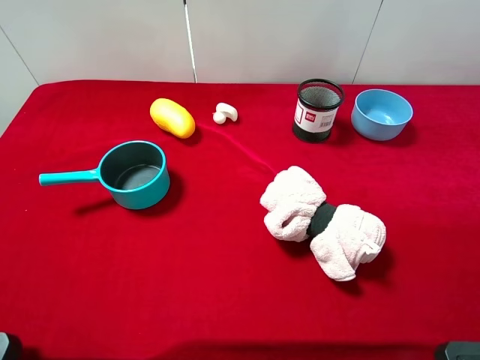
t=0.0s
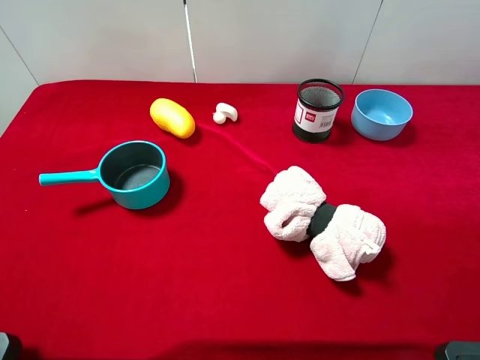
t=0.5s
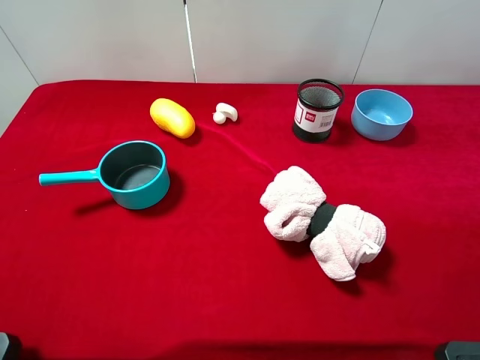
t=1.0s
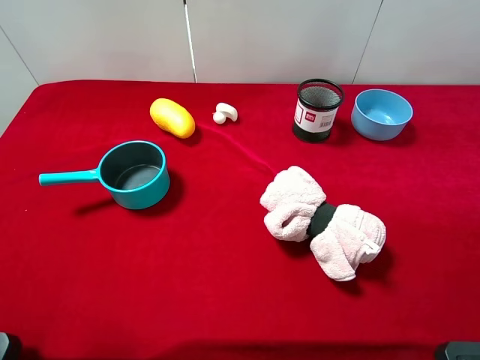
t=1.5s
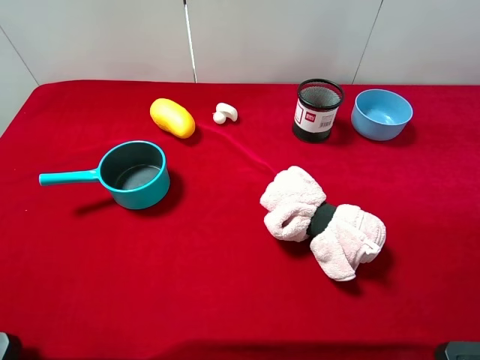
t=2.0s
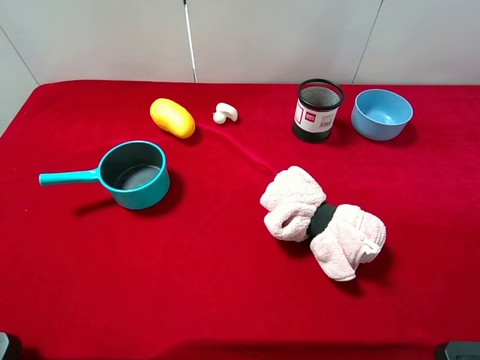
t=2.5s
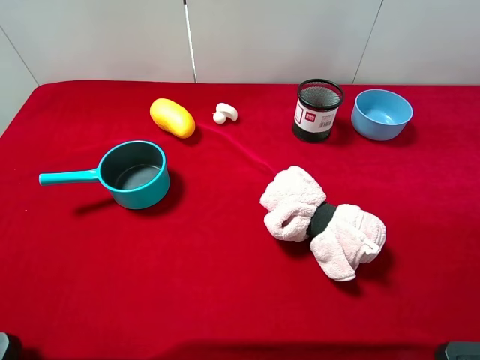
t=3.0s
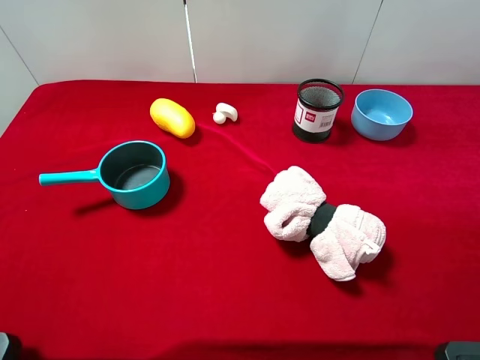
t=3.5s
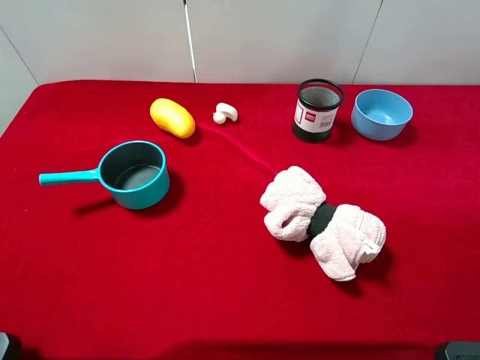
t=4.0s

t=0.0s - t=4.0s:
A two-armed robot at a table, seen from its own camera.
Task of the whole recording: the gripper move the object.
t=2.0s - t=4.0s: Both grippers stay put.
